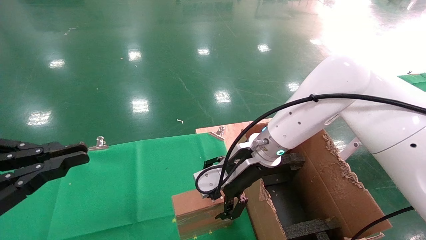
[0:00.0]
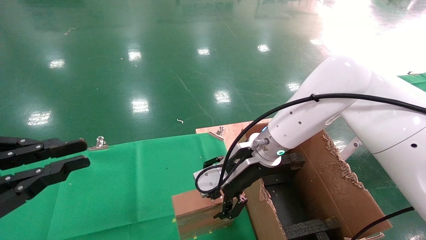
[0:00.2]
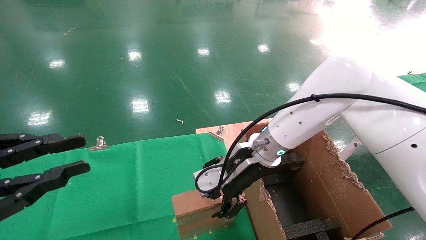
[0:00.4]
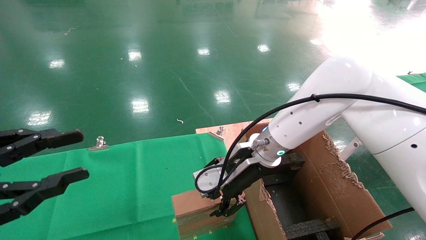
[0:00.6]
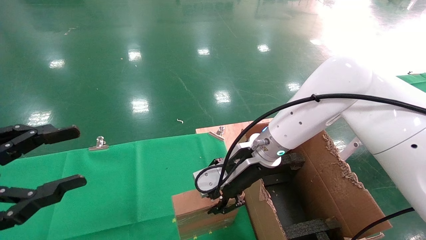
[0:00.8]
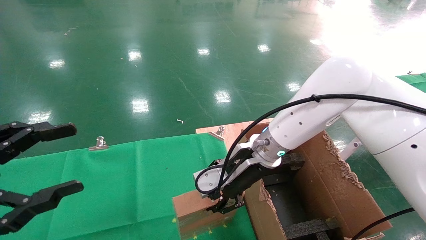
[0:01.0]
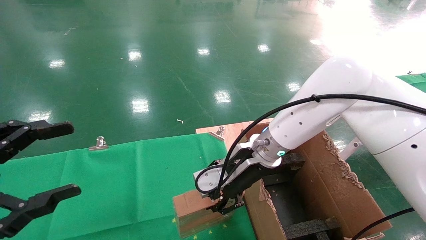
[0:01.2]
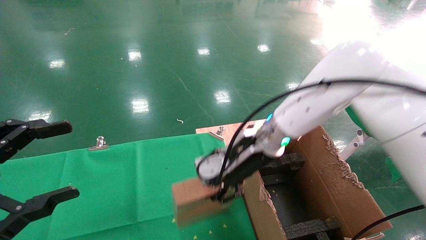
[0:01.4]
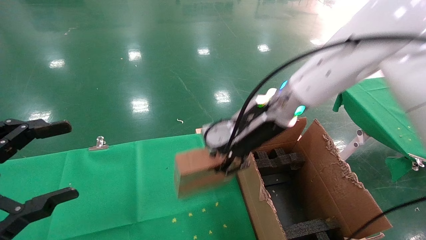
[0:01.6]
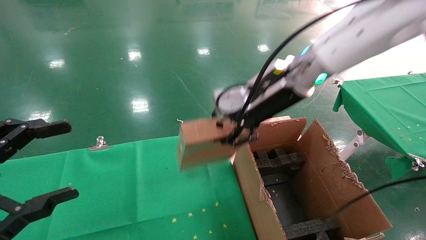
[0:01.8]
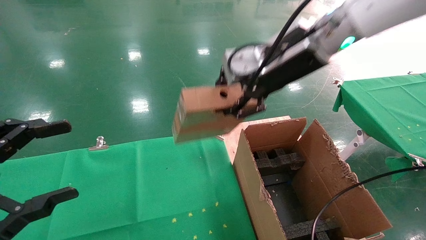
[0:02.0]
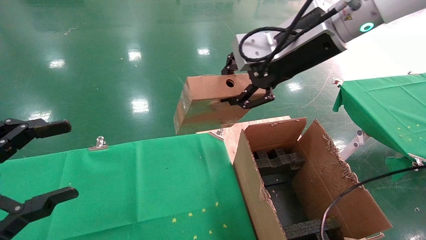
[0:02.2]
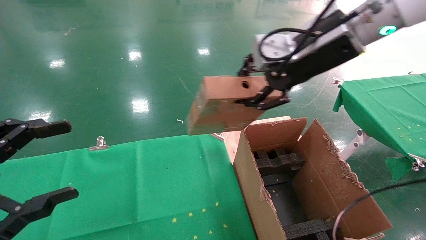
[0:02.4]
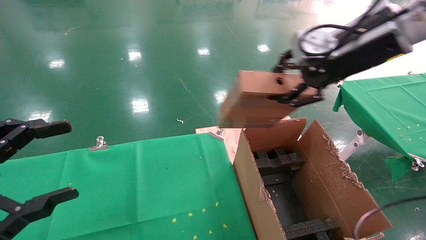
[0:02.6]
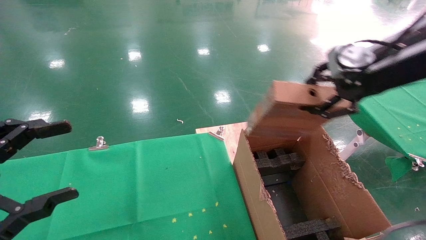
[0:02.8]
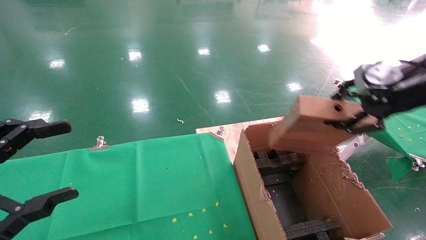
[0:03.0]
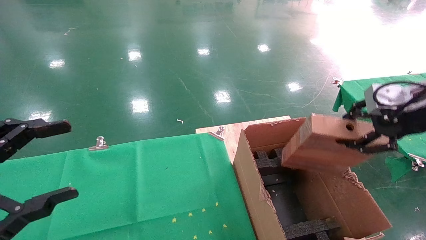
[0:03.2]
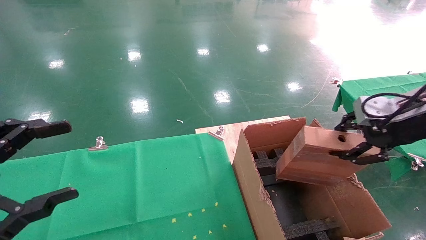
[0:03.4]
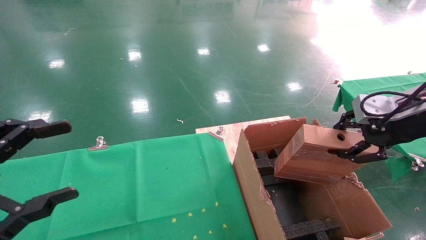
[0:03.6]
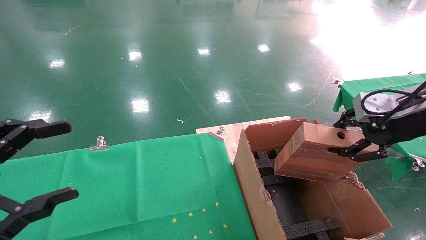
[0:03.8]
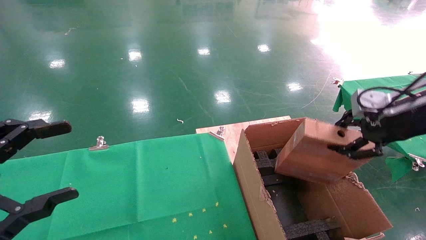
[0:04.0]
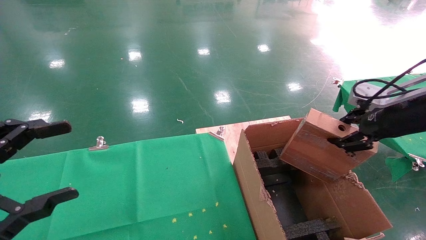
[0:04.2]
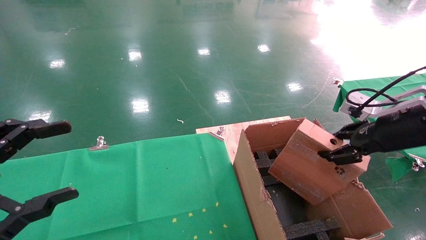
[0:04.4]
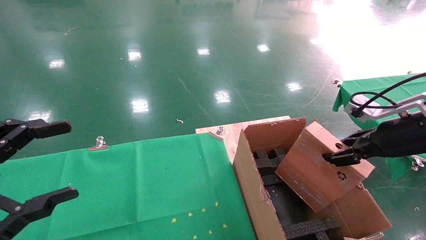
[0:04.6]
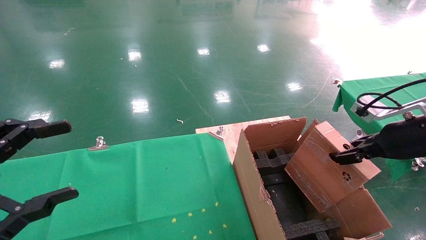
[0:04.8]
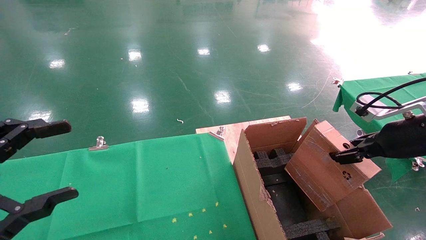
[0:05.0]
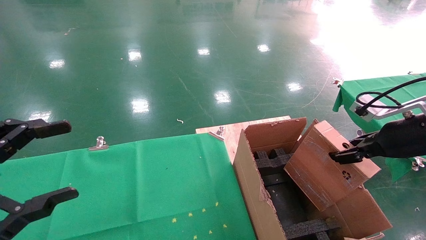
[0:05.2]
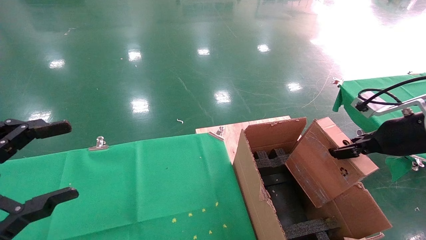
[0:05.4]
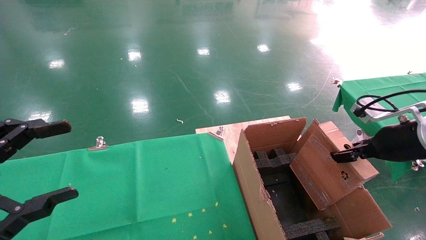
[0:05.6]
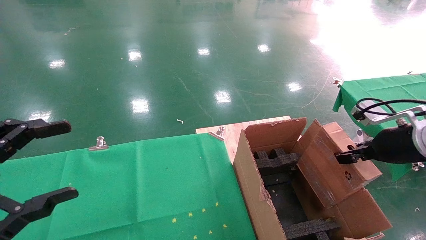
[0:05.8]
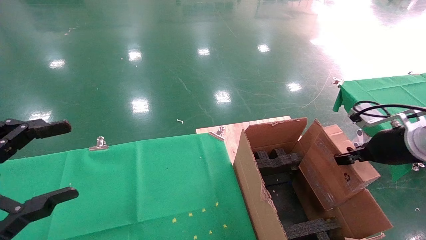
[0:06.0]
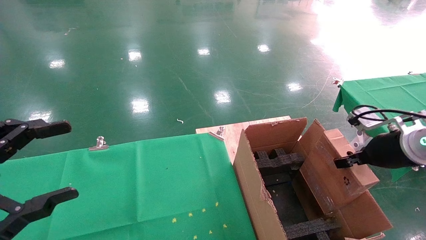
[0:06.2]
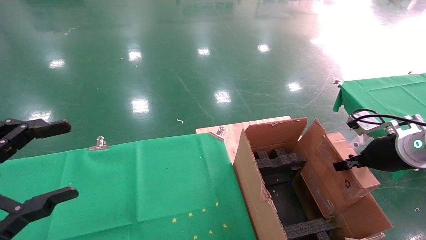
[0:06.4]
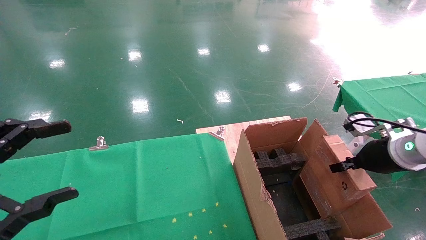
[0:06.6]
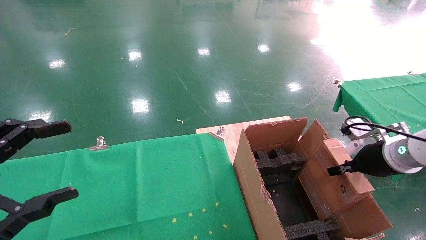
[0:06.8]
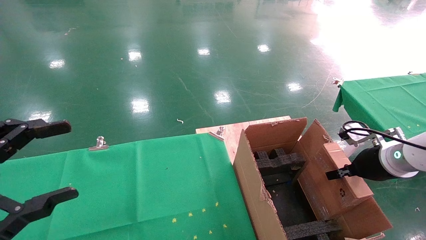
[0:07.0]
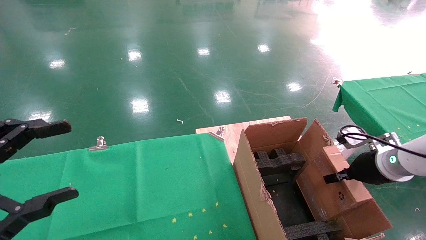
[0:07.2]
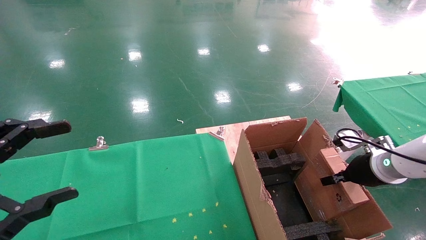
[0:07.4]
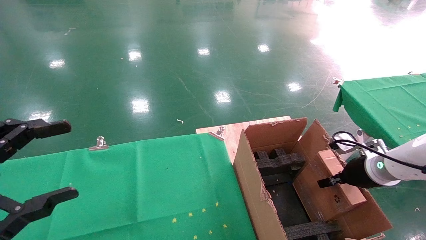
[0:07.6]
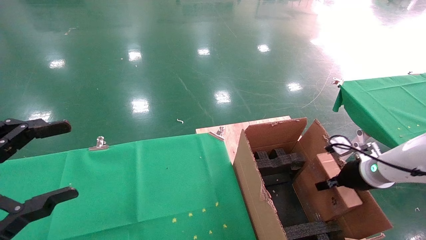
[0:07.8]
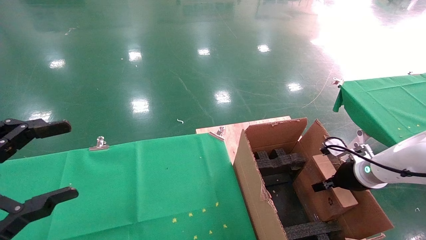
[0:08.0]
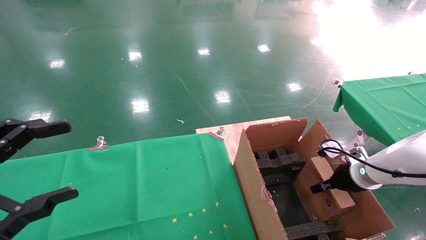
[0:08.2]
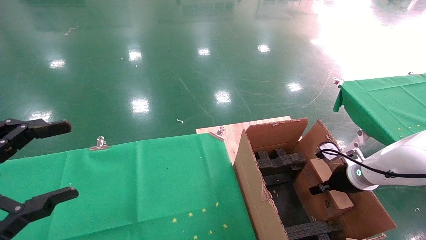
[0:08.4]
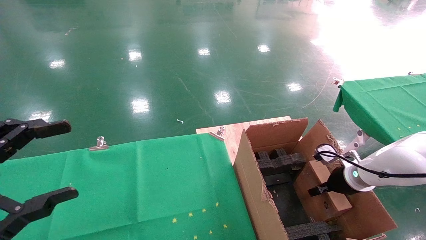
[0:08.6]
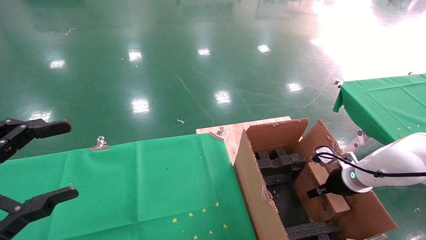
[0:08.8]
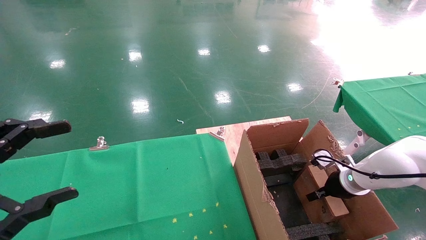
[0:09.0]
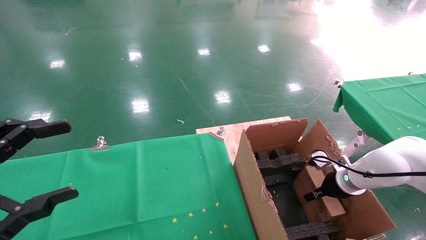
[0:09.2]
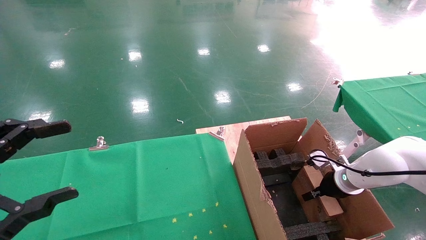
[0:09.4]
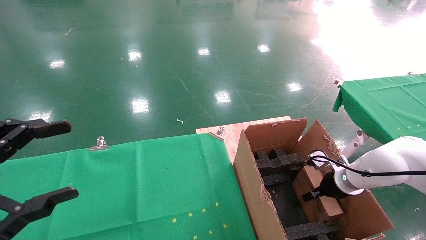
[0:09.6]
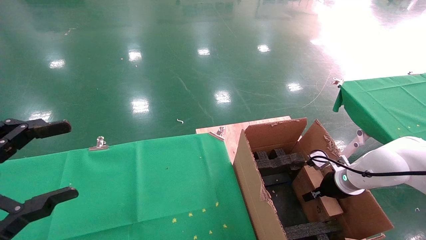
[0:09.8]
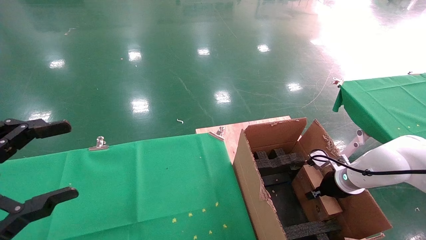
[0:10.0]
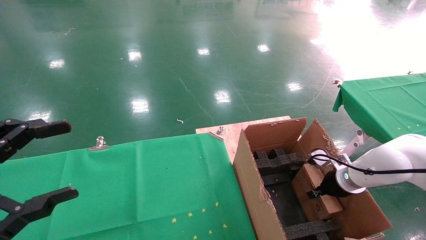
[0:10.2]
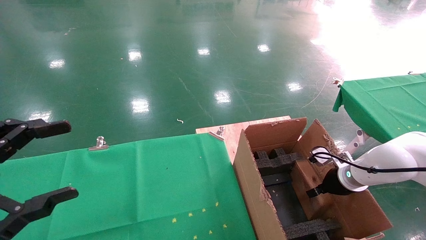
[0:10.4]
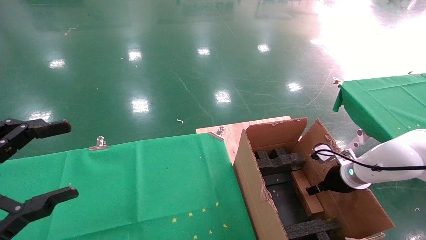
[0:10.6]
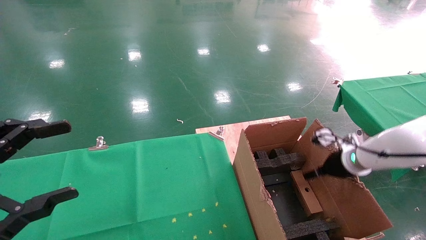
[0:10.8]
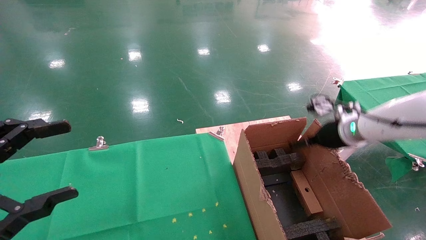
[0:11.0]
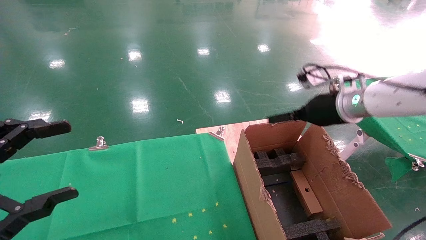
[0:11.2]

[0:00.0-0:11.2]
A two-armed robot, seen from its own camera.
Task of the whole recording: using a robotic arm to pick up a cardboard box and palace it the carton.
Step, 0:01.4 to 0:10.6: Place the mouse and the power cord paper box into the container.
0:00.0 to 0:01.6: The right gripper travels upward by roughly 10 cm, and closes its fingers. Meanwhile the left gripper opens its fingers.
0:01.6 to 0:03.2: The right gripper is displaced to the right and backward by roughly 30 cm.
0:03.2 to 0:04.8: The right gripper shifts some 10 cm downward.
0:04.8 to 0:06.4: The right gripper heads downward, covering approximately 5 cm.
0:06.4 to 0:08.0: The right gripper travels downward and forward by approximately 10 cm.
0:08.0 to 0:09.6: The right gripper shifts approximately 5 cm downward.
0:09.6 to 0:11.2: The right gripper goes some 20 cm upward, and opens its fingers.

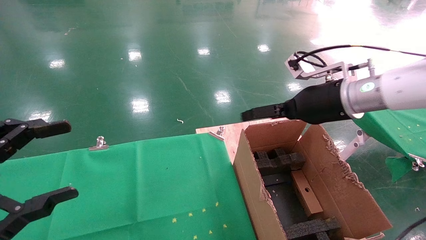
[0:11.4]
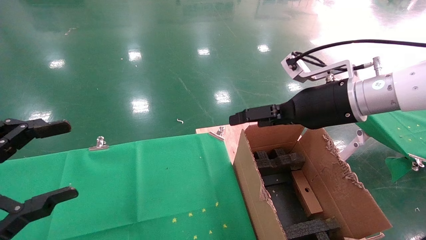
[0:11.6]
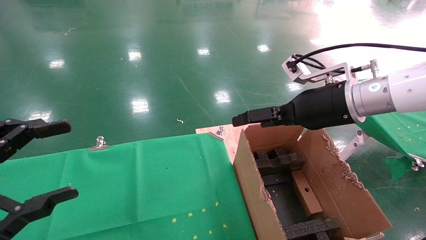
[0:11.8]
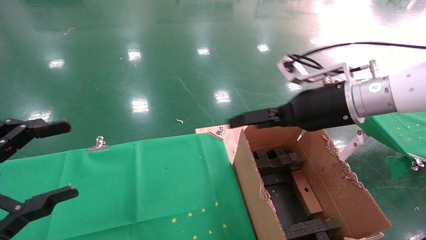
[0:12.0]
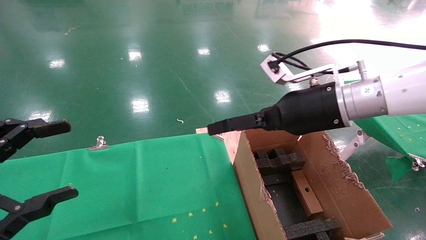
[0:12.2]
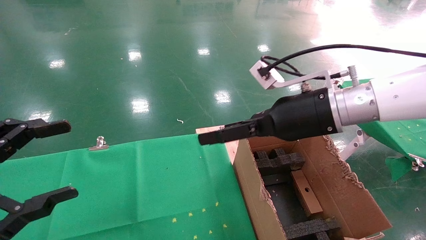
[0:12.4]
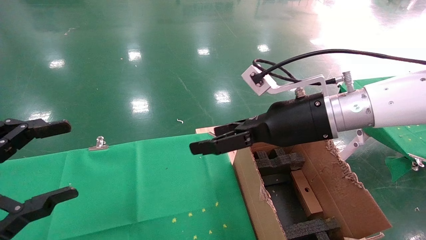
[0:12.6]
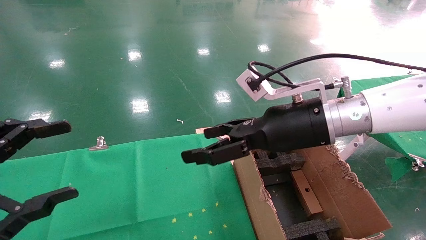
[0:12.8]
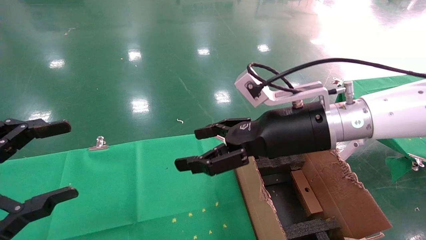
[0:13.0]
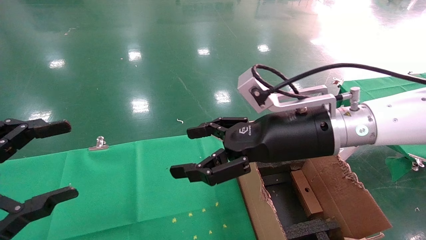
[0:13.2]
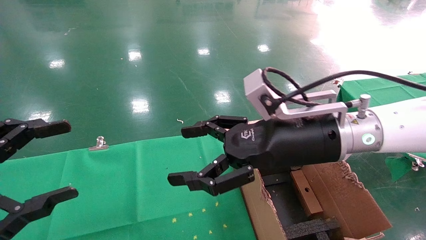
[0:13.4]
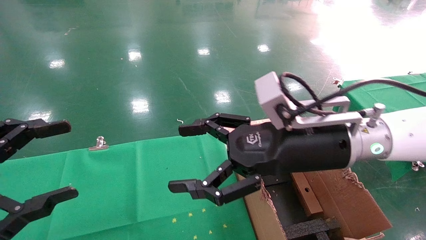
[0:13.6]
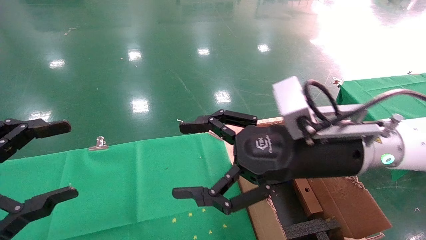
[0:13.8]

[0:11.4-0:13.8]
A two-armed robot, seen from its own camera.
Task of the whole recording: using a robotic arm to pick up a cardboard box and palace it the carton.
0:11.4 to 0:12.6: The right gripper shifts some 10 cm to the left.
0:12.6 to 0:13.8: The right gripper is displaced backward by some 5 cm.

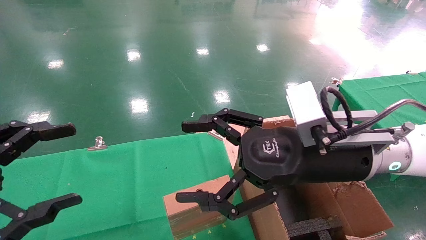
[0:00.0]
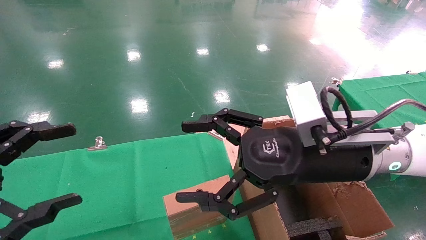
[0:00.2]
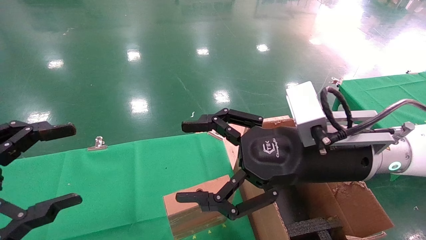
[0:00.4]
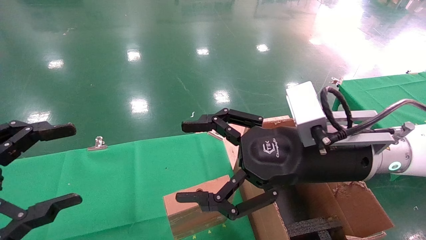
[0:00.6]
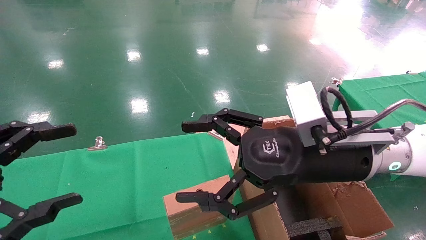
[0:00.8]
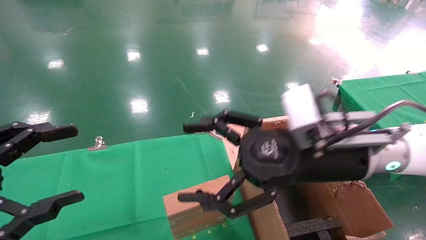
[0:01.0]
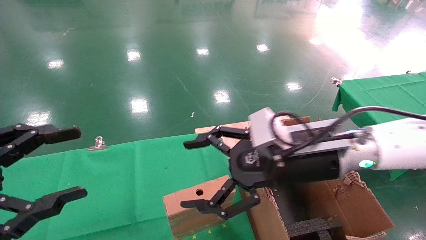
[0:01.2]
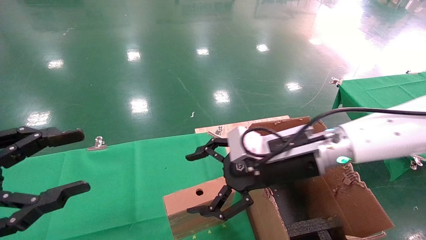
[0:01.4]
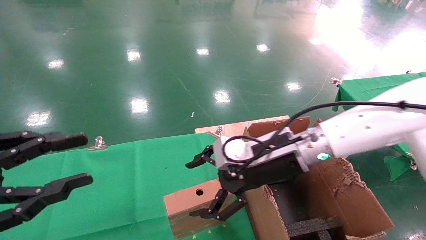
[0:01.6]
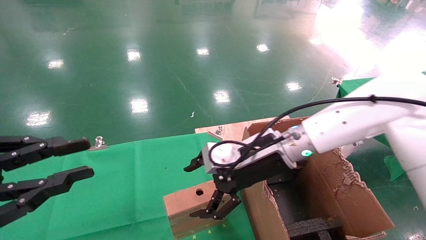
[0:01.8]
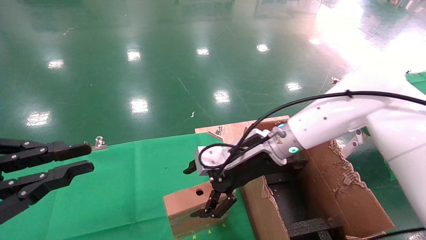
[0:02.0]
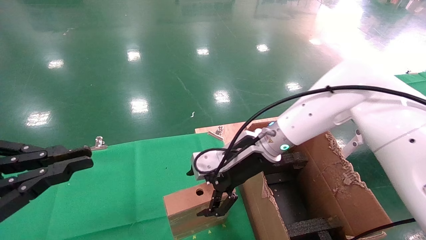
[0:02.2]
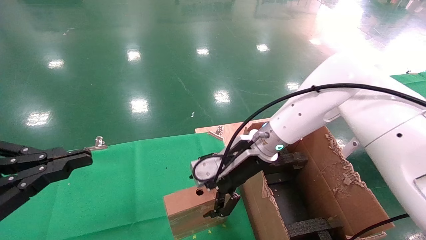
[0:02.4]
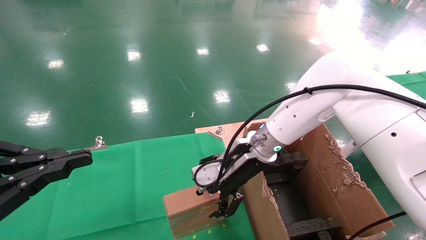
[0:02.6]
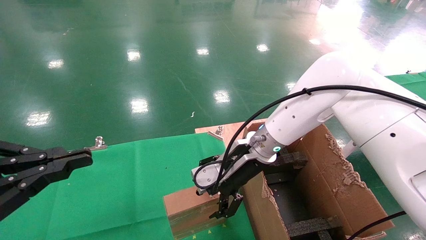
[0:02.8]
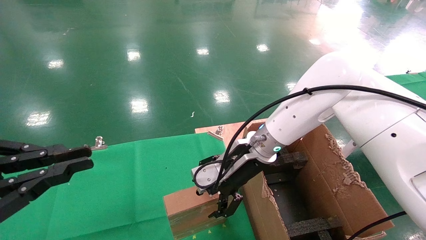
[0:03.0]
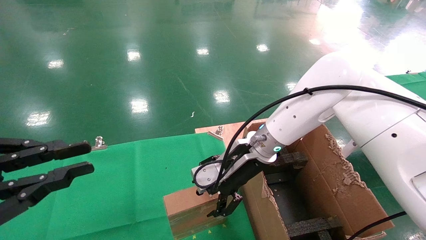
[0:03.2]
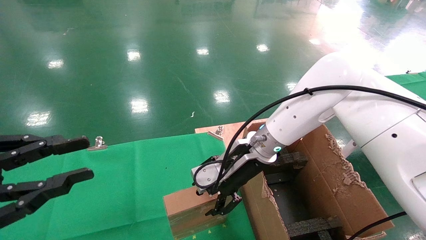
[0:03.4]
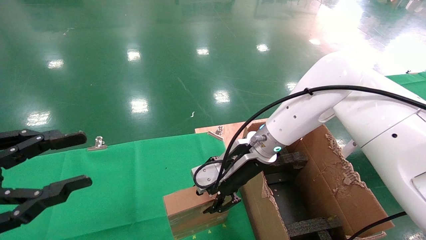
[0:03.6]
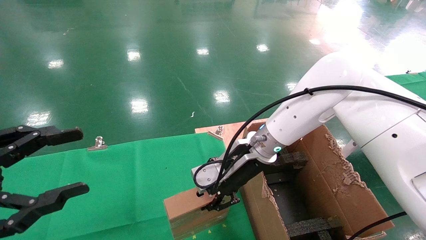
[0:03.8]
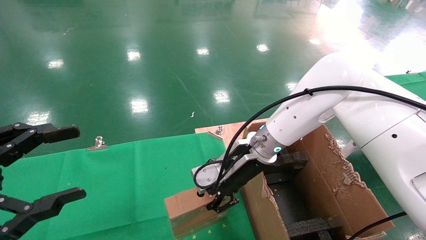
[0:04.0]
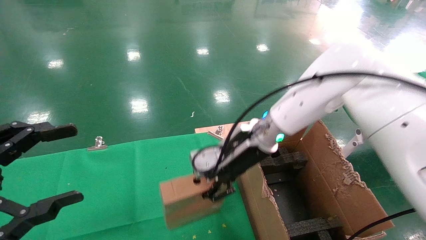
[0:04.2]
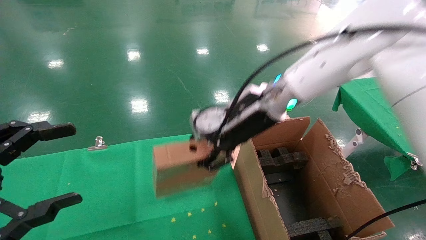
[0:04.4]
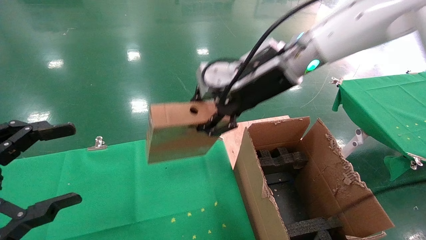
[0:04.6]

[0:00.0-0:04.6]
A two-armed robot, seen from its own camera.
Task of the whole recording: using a robotic arm to pick up a cardboard box and palace it the carton.
Step, 0:01.4 to 0:03.8: Pick up the mouse and the power cord paper box.
0:00.0 to 0:01.6: The right gripper shifts roughly 10 cm forward. The left gripper closes.
0:01.6 to 0:03.0: The right gripper goes approximately 5 cm forward. The left gripper closes its fingers.
0:03.0 to 0:04.6: The right gripper heads upward, covering some 15 cm, and closes its fingers. The left gripper opens.
